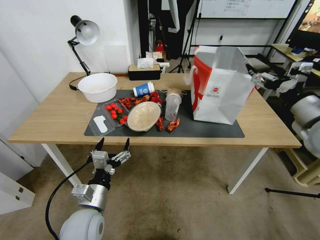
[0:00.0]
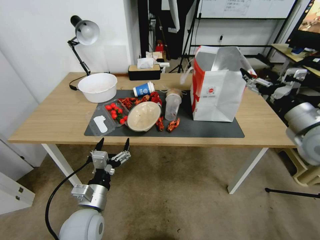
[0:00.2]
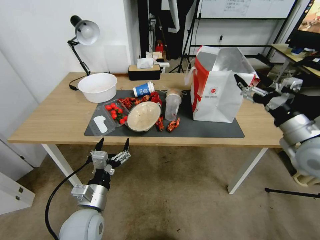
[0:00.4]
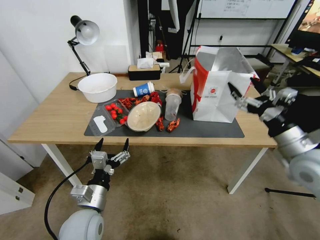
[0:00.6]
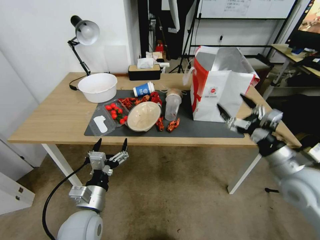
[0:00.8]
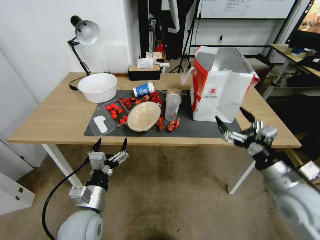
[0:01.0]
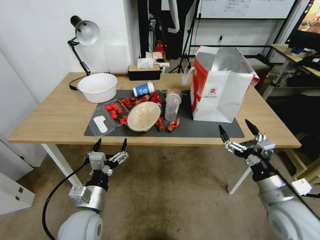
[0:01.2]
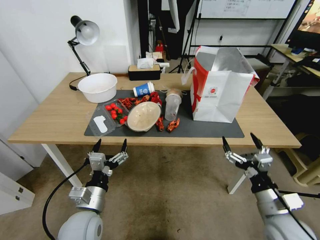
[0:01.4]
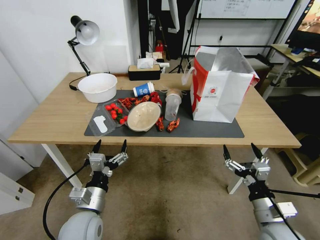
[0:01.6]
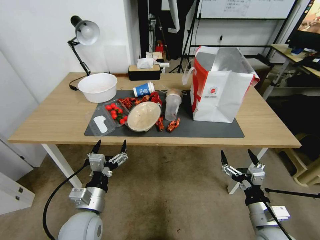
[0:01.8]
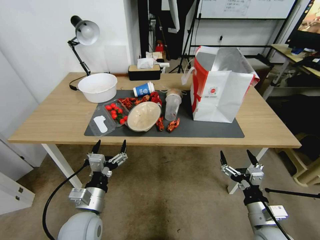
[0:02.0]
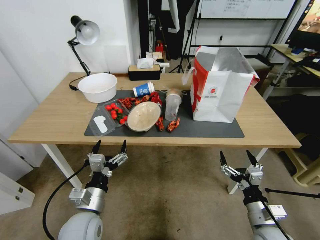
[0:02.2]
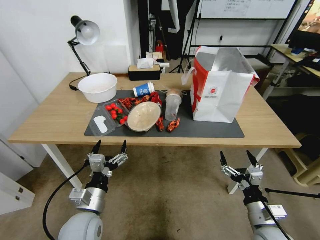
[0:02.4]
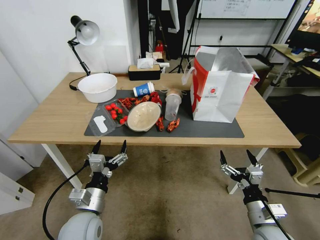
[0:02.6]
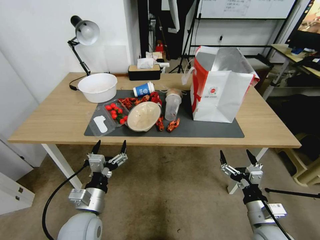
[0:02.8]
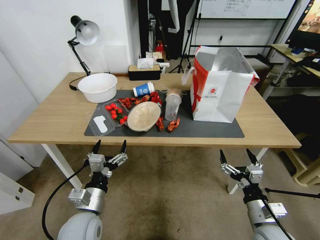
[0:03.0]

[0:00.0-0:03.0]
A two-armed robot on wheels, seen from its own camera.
Task of the whole recording: Pick up the food delivery bag from the floor and place it on the table.
0:00.0 to 0:01.6: The right gripper moves downward and backward, about 30 cm.
0:01.6 to 0:03.0: The grippers move only a little.
